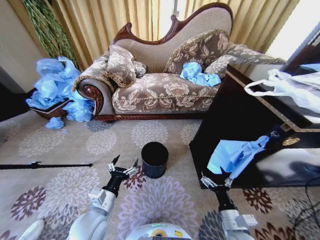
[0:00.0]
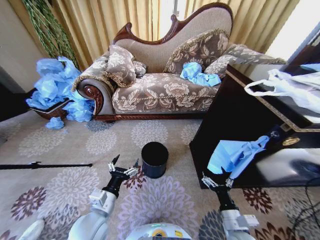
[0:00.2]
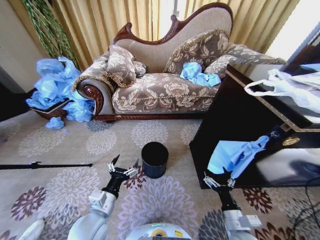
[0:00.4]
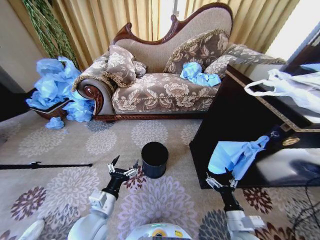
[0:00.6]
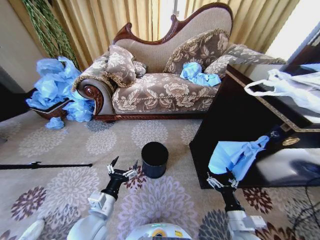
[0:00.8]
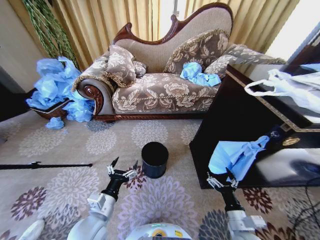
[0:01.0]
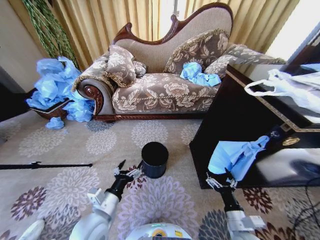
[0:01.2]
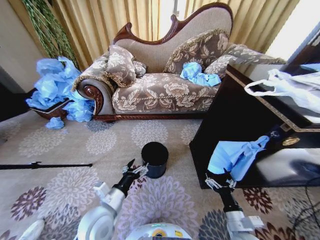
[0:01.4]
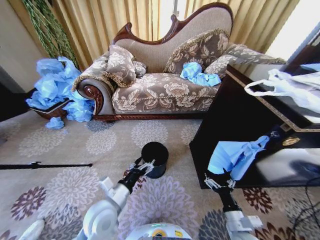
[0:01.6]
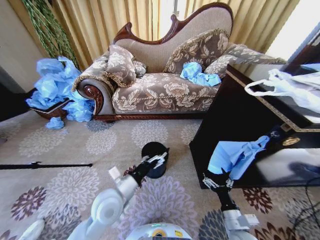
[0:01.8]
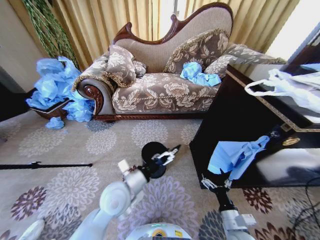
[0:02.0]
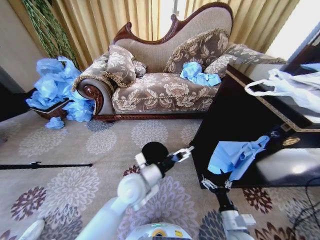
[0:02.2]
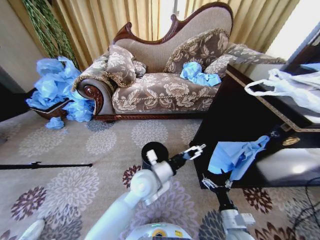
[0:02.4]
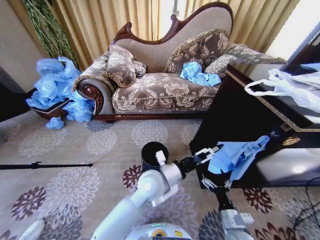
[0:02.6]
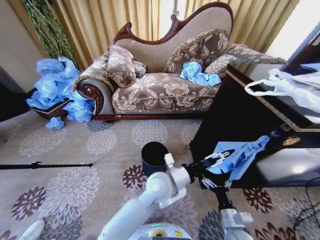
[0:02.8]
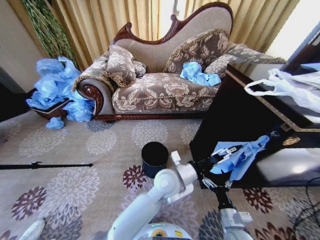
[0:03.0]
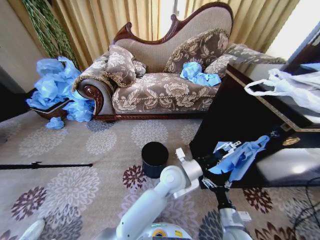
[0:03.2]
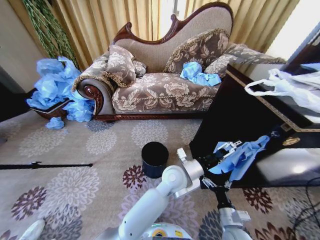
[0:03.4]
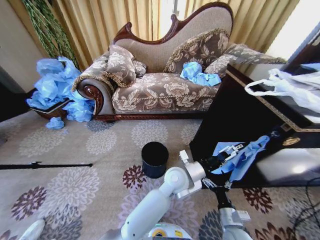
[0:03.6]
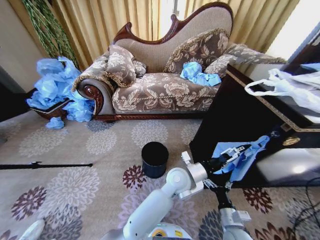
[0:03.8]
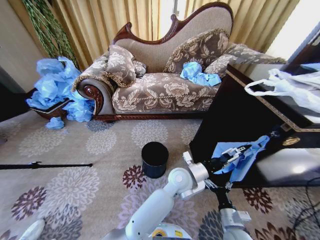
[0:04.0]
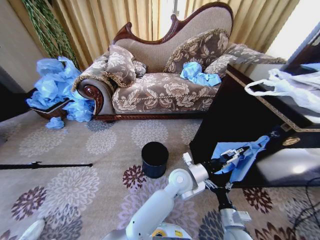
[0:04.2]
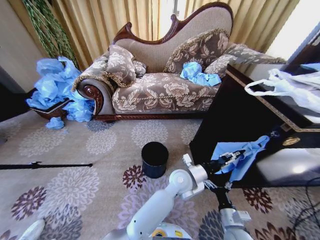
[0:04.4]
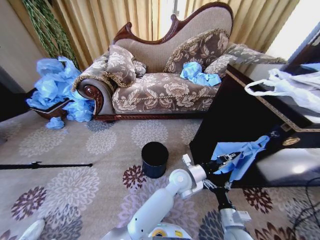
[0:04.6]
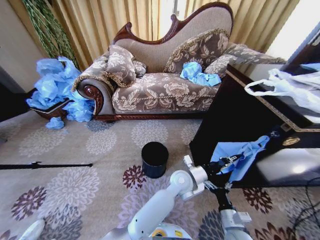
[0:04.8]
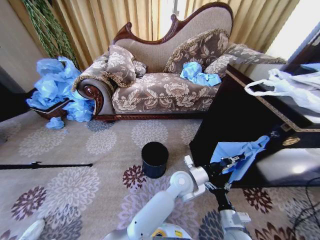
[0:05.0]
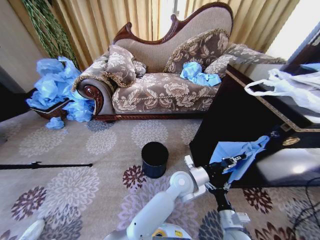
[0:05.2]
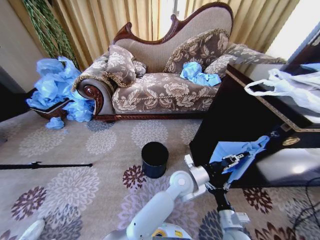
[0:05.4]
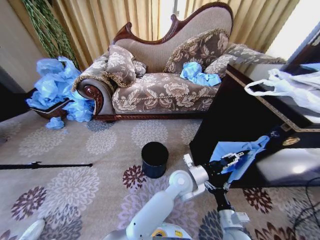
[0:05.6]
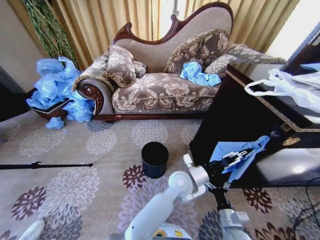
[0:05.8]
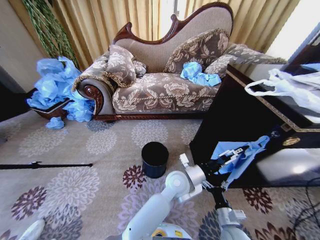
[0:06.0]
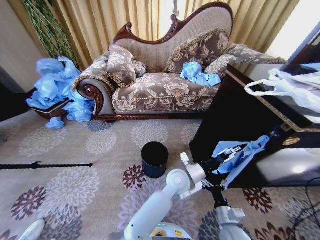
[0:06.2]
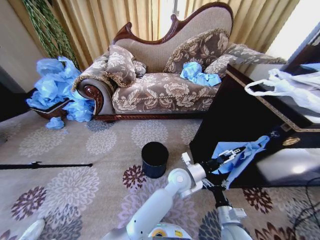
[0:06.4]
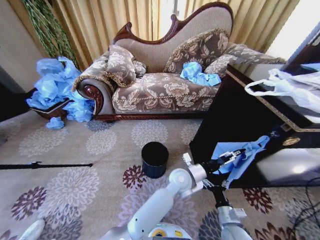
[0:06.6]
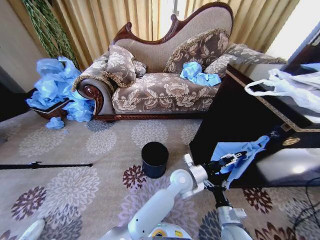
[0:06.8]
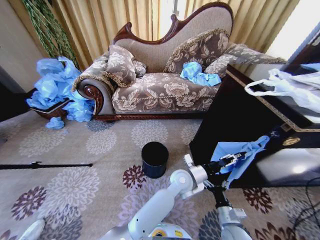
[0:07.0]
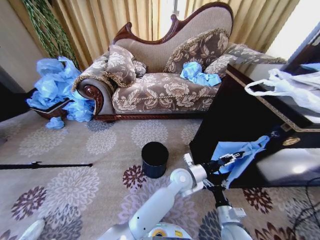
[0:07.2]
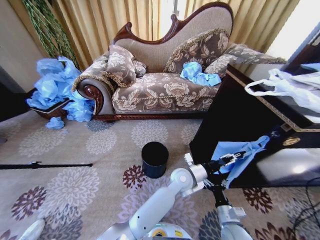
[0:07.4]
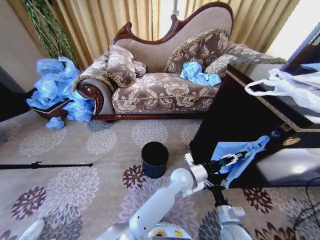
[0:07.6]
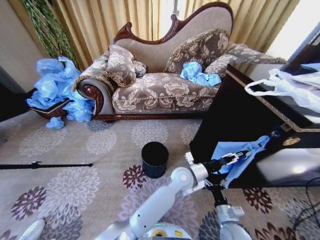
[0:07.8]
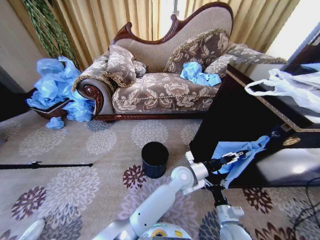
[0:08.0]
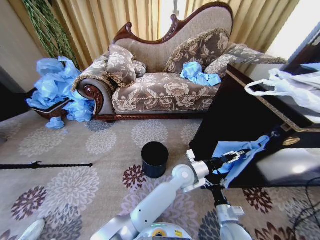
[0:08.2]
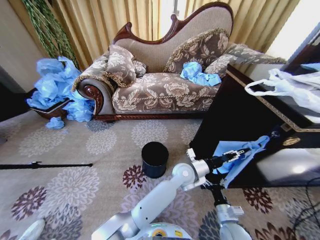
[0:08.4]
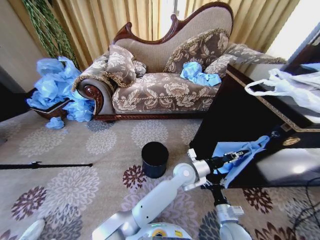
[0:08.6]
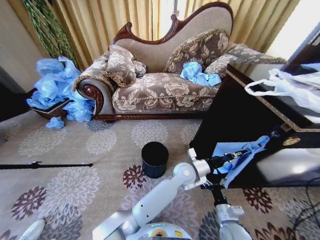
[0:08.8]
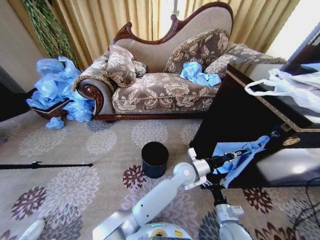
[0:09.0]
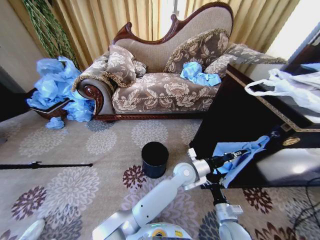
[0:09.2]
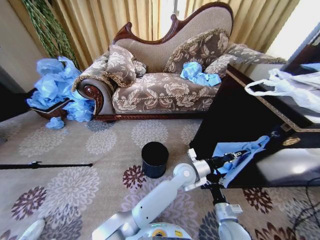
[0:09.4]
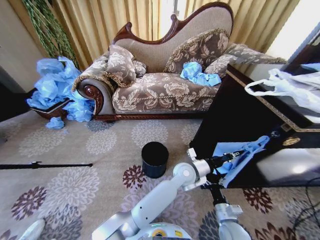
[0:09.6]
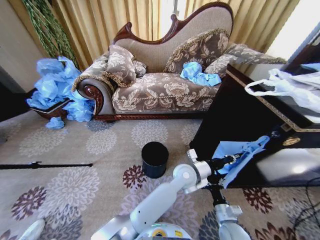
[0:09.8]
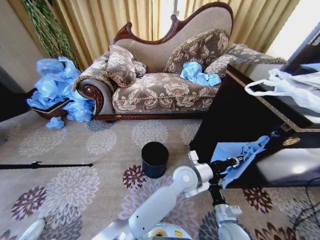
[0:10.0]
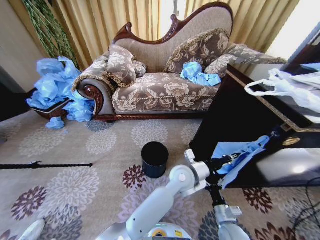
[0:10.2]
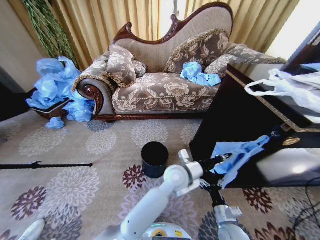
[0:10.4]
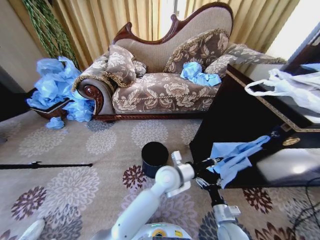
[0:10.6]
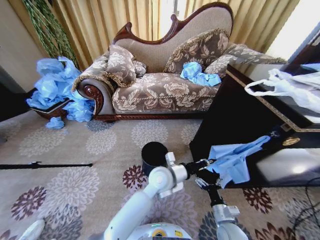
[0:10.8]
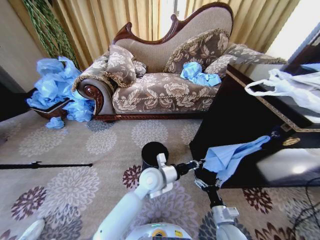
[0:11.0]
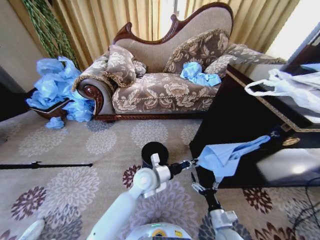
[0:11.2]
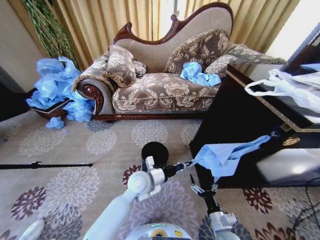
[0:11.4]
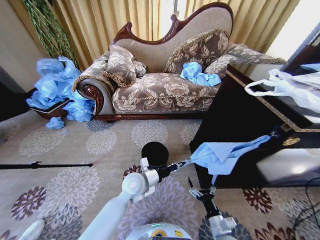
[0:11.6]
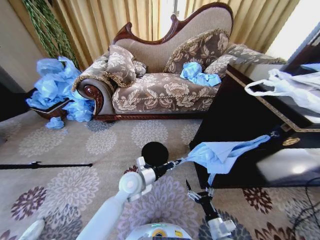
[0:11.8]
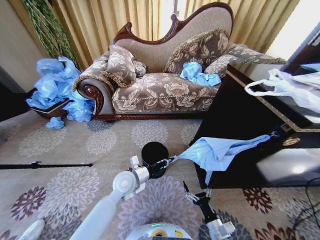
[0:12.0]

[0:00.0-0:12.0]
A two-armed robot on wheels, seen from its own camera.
Task of the whole recording: Place a garbage bag over the trash bin.
0:01.6 to 0:03.0: The left gripper heads to the right and forward, covering about 25 cm.
0:03.0 to 0:04.4: The left gripper is displaced to the right and downward by approximately 10 cm, and closes.
0:04.4 to 0:06.0: The left gripper opens up.
0:06.0 to 0:07.6: The grippers make only small movements.
0:07.6 to 0:09.0: The left gripper closes its fingers.
0:09.0 to 0:10.4: The left gripper moves some 5 cm.
0:10.4 to 0:12.0: The left gripper goes approximately 20 cm to the left. Meanwhile the right gripper shifts by some 5 cm.

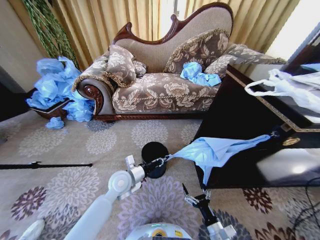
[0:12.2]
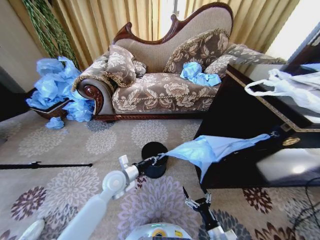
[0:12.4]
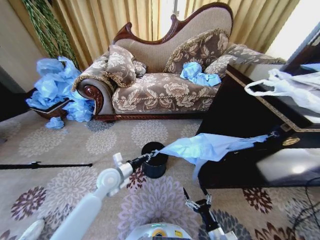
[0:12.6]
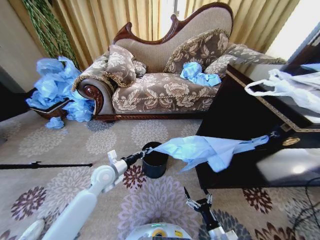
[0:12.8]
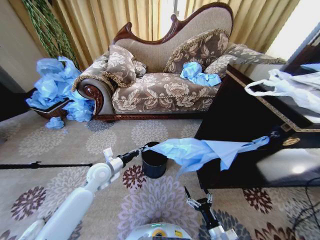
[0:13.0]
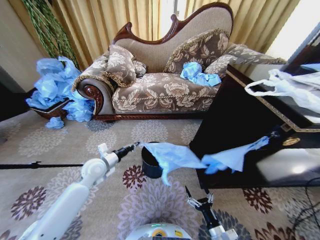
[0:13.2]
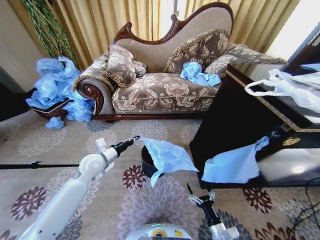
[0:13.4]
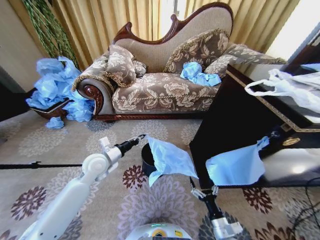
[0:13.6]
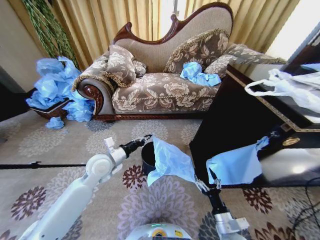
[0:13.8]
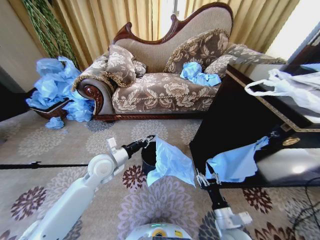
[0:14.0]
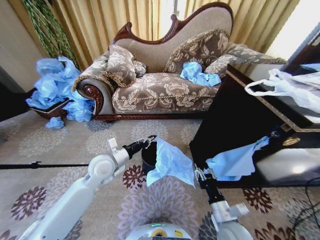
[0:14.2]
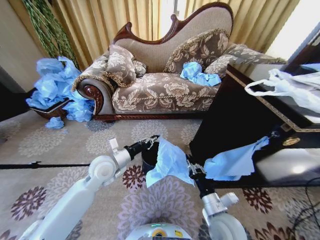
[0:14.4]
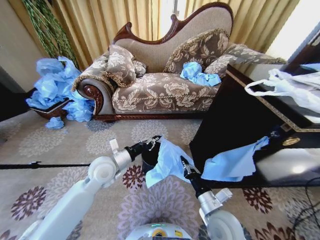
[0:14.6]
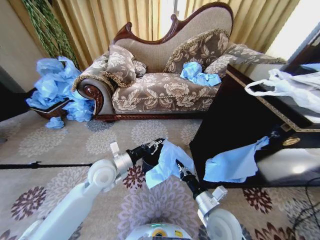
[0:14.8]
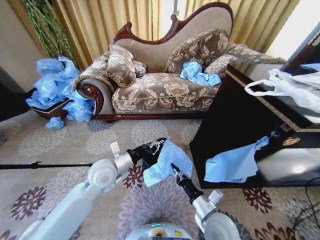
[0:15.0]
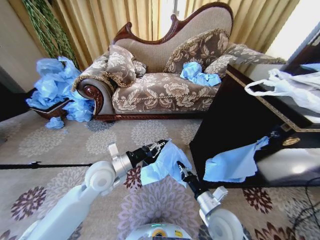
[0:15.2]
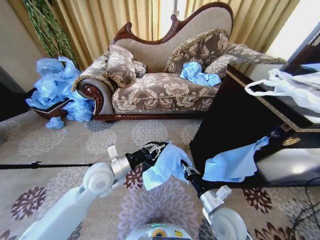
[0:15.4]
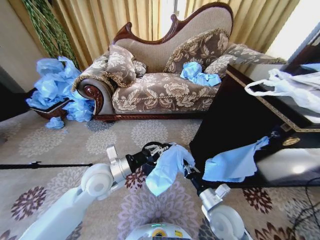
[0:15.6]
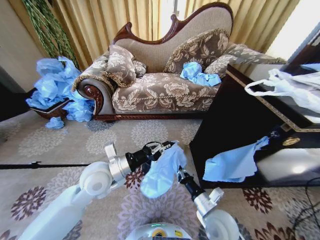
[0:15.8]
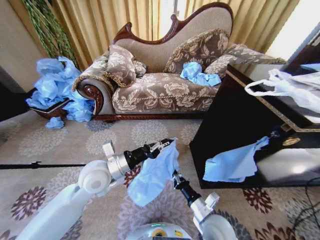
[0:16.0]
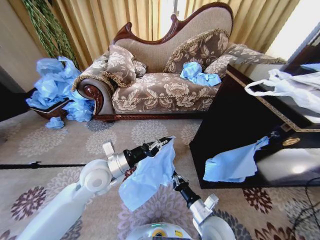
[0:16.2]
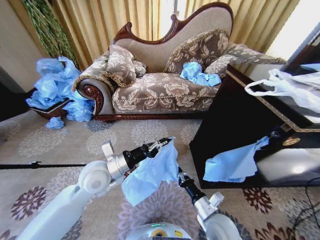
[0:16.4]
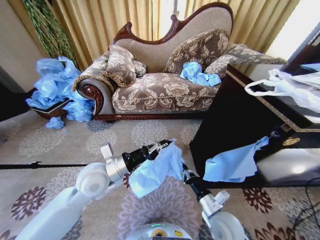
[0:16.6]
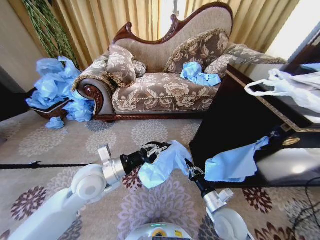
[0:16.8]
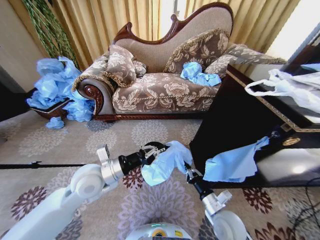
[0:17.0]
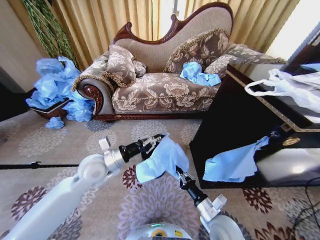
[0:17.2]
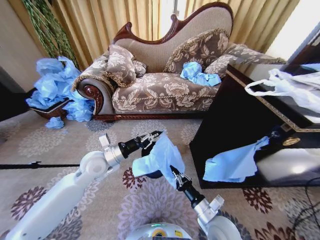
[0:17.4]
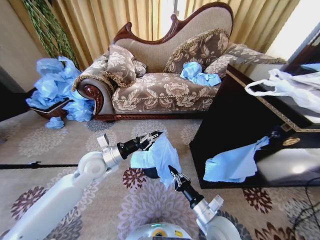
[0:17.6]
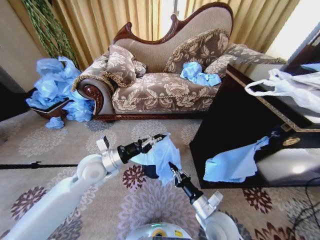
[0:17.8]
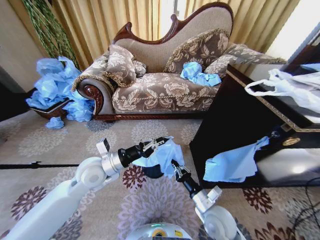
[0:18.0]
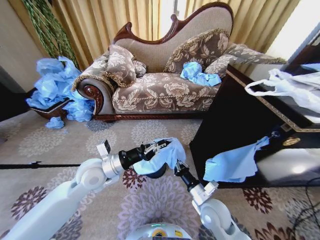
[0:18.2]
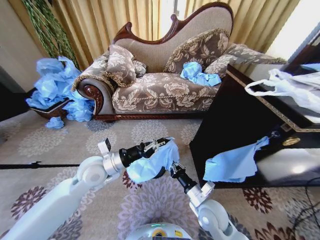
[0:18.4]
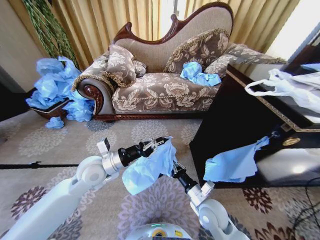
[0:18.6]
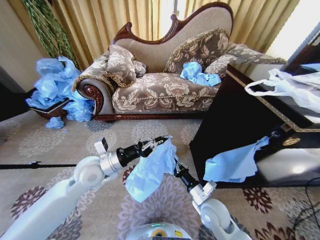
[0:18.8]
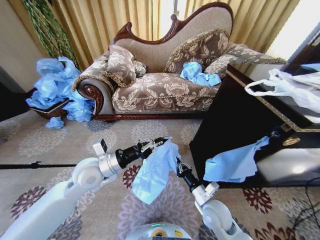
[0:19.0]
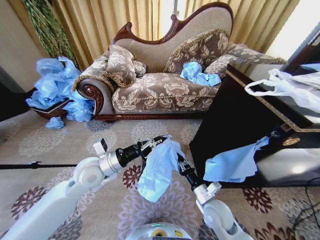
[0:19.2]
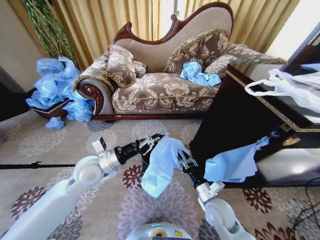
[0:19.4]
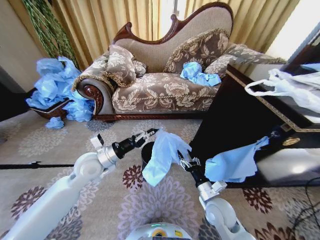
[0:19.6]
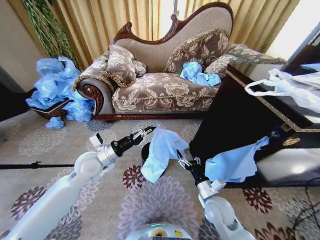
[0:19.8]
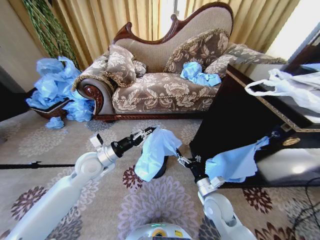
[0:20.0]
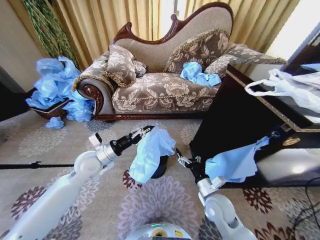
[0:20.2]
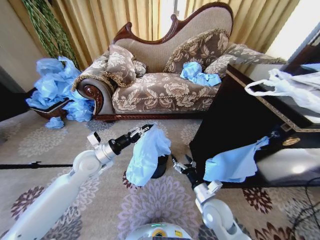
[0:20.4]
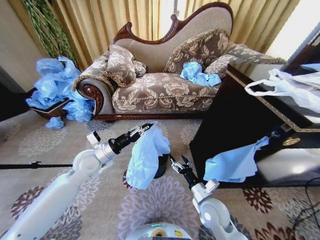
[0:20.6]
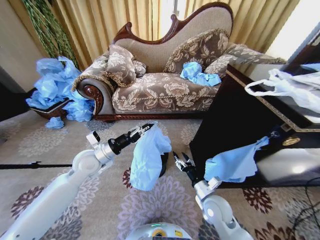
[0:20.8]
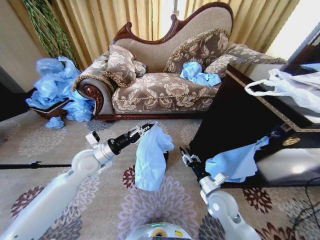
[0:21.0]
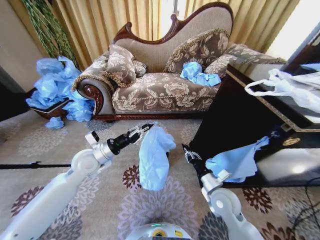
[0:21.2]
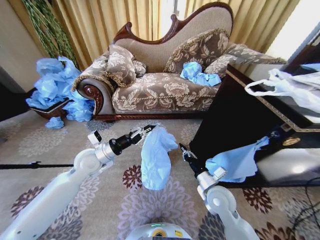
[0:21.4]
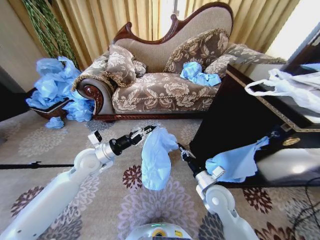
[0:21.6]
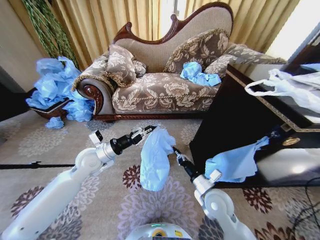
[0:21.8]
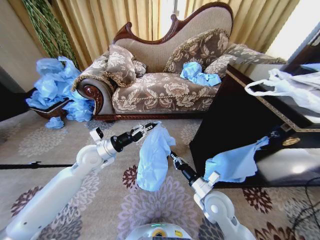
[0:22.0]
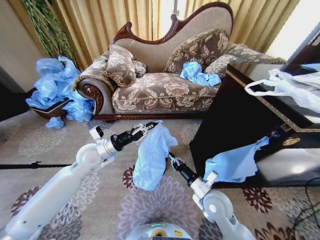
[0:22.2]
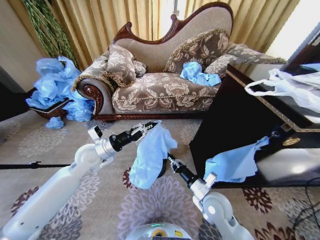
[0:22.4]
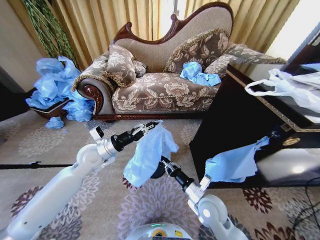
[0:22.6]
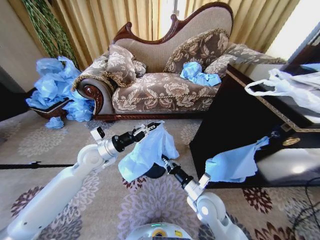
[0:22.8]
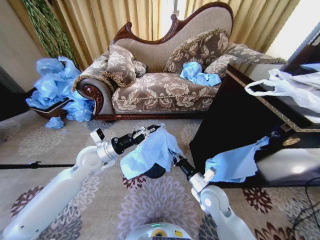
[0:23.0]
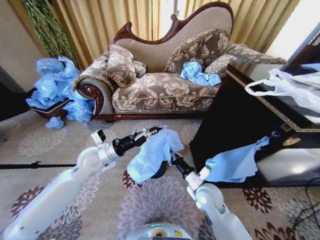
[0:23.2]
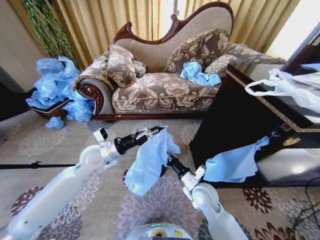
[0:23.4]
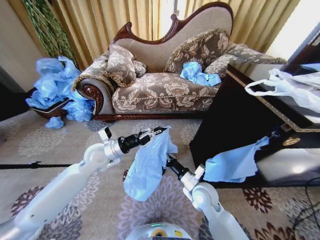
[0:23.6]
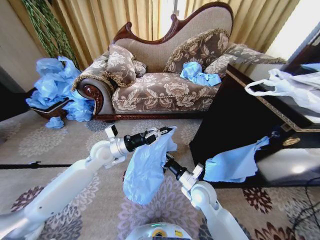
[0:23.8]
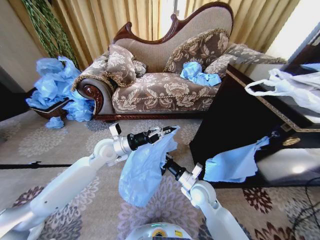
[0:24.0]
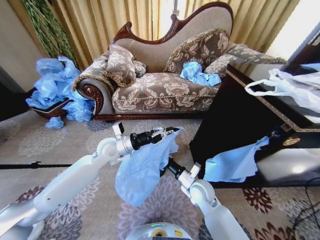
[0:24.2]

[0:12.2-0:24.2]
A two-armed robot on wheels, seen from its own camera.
Task of the whole recording: Place a garbage bag over the trash bin.
0:12.2 to 0:13.8: The right gripper changes place by approximately 5 cm. The left gripper moves upward and to the left, about 10 cm.
0:13.8 to 0:15.2: The left gripper shifts by approximately 5 cm. The right gripper goes roughly 10 cm upward, forward and to the left, and closes its fingers.
0:15.2 to 0:16.6: The grippers move only a little.
0:18.2 to 0:19.8: The right gripper opens its fingers. Meanwhile the left gripper moves about 5 cm.
0:19.8 to 0:21.2: The right gripper closes.
0:21.2 to 0:22.6: The right gripper shifts roughly 5 cm to the left.
0:22.6 to 0:24.2: The left gripper heads to the right, covering about 5 cm; the right gripper heads forward, covering roughly 5 cm.
